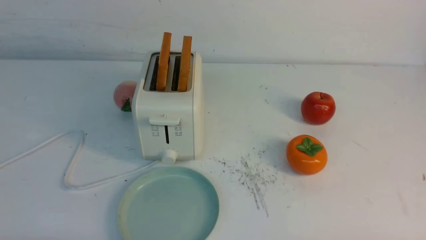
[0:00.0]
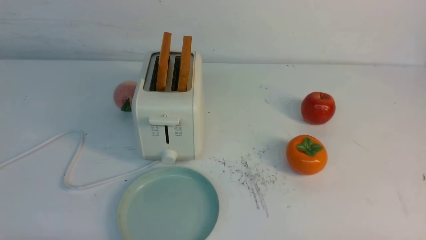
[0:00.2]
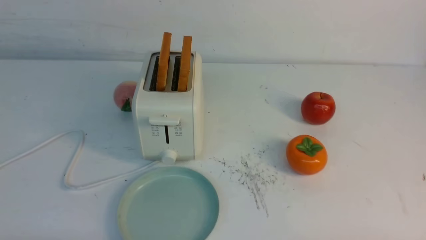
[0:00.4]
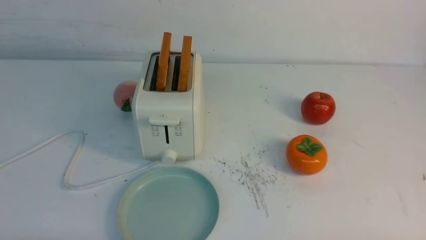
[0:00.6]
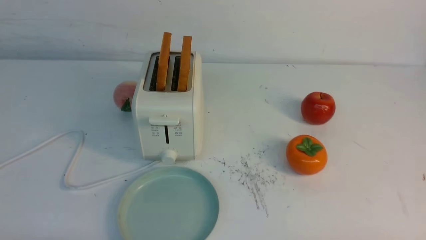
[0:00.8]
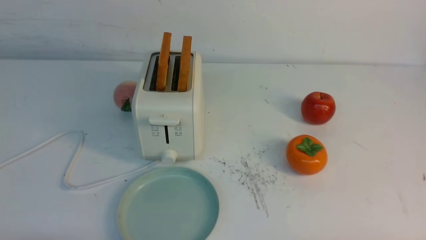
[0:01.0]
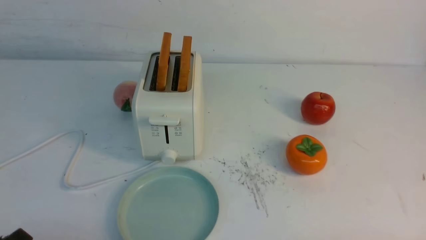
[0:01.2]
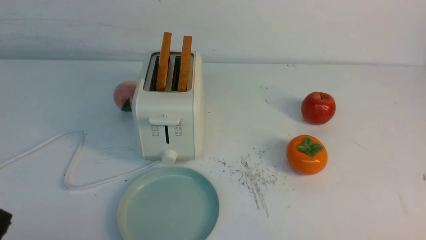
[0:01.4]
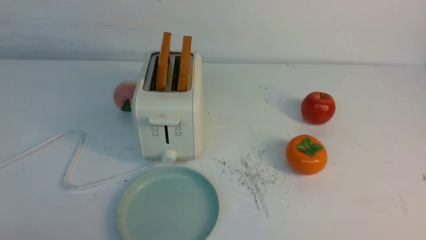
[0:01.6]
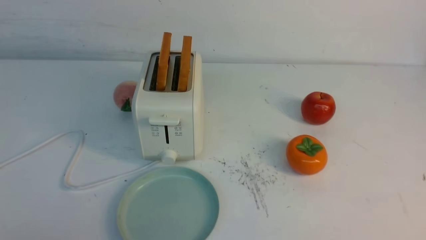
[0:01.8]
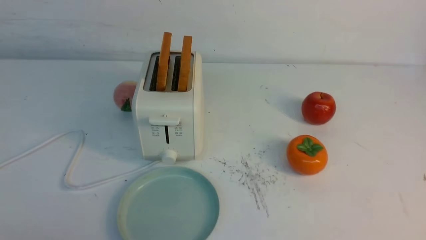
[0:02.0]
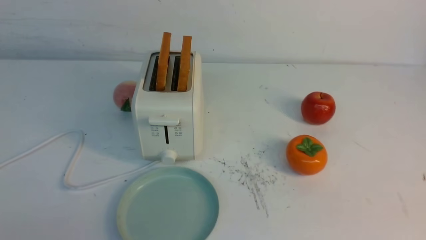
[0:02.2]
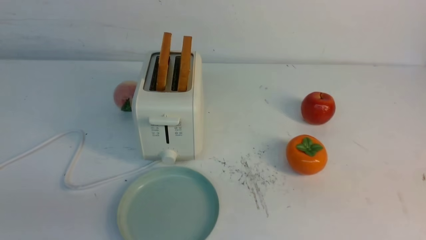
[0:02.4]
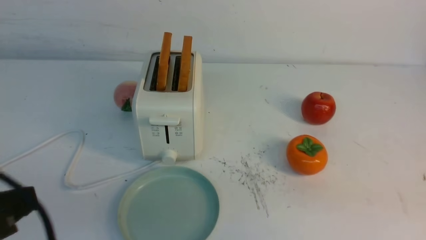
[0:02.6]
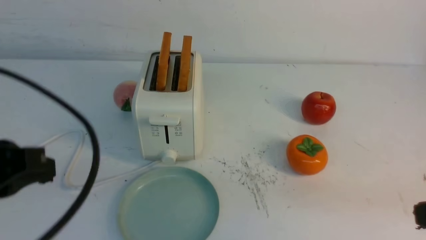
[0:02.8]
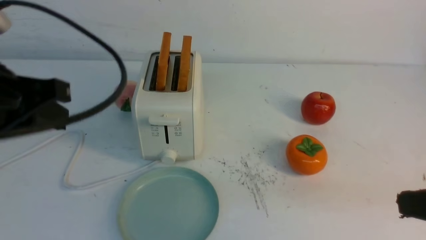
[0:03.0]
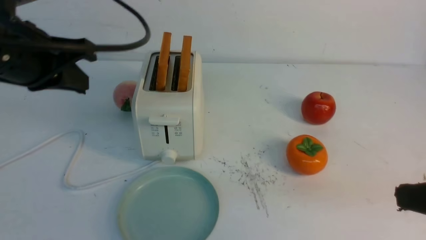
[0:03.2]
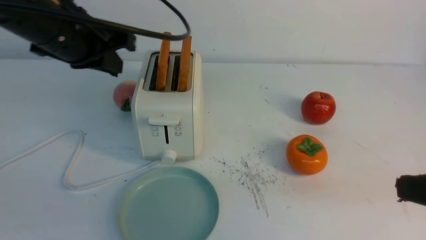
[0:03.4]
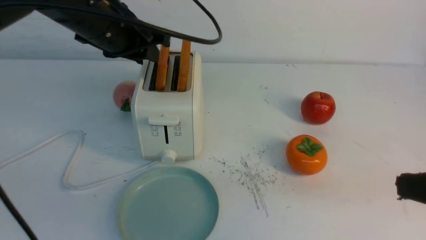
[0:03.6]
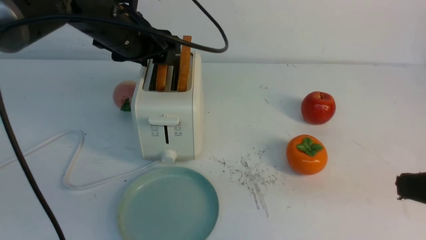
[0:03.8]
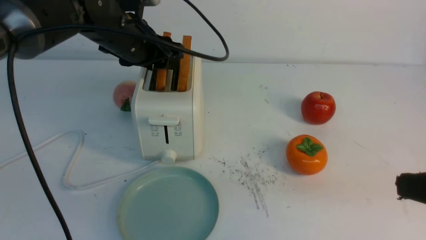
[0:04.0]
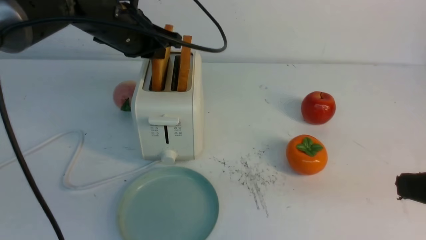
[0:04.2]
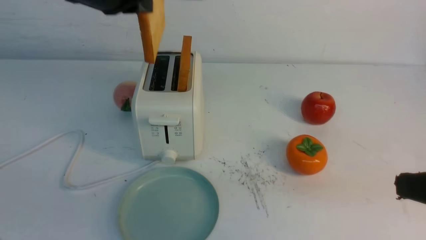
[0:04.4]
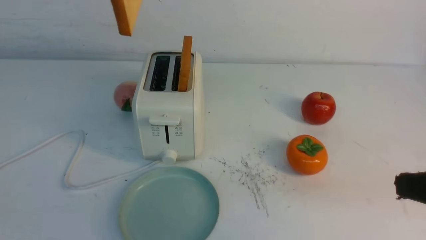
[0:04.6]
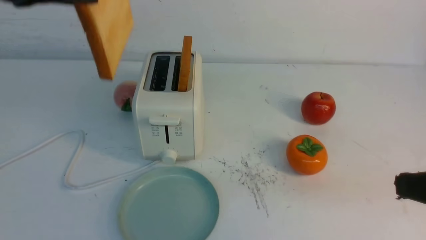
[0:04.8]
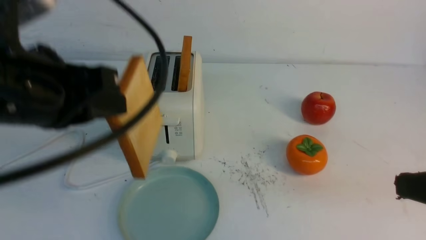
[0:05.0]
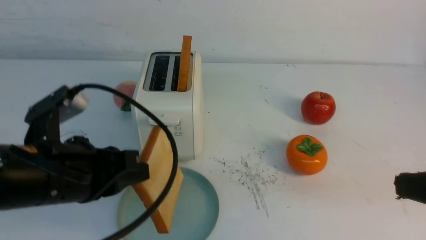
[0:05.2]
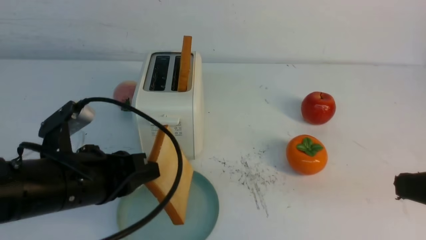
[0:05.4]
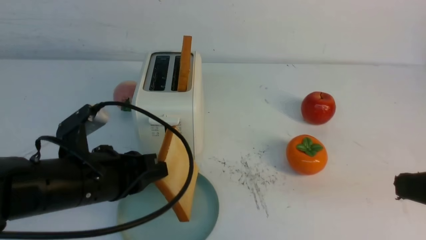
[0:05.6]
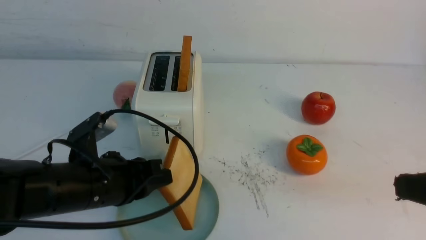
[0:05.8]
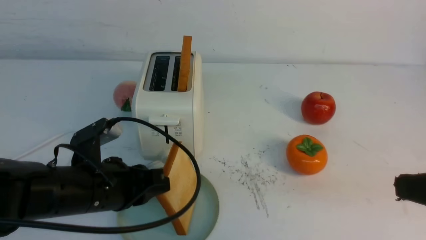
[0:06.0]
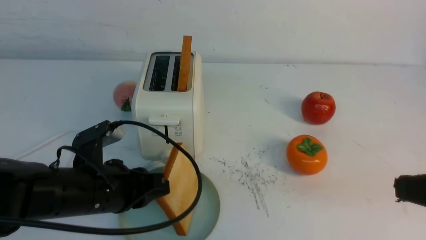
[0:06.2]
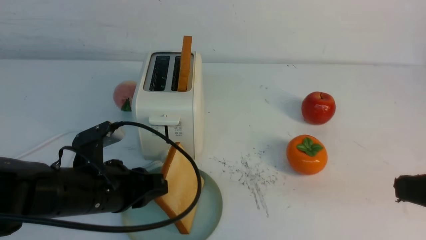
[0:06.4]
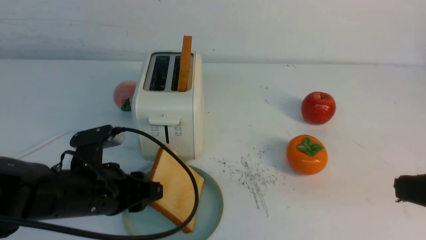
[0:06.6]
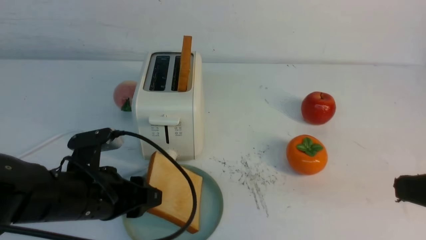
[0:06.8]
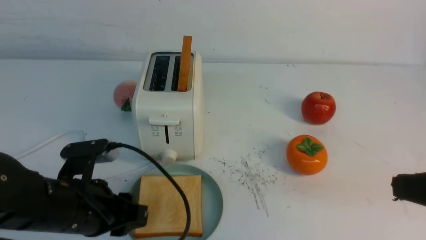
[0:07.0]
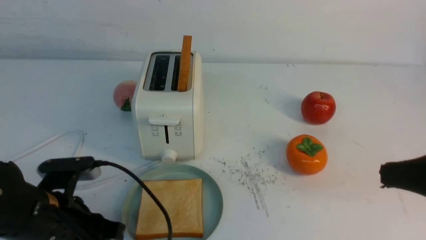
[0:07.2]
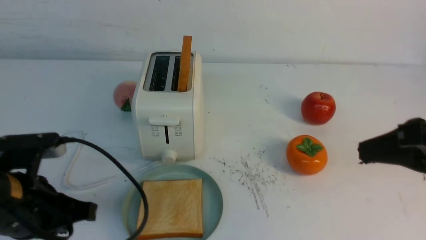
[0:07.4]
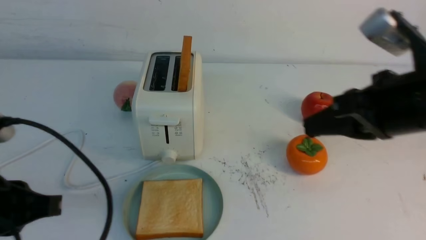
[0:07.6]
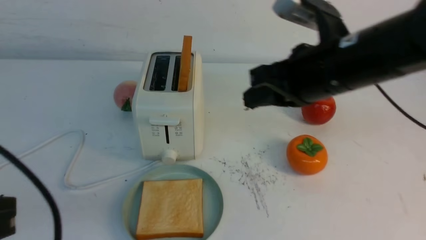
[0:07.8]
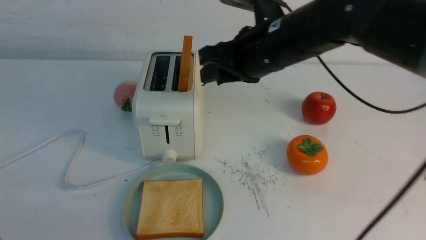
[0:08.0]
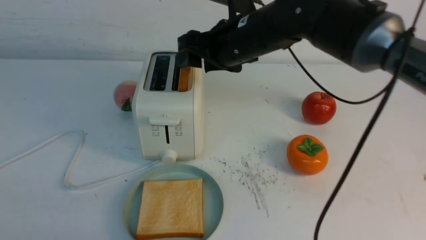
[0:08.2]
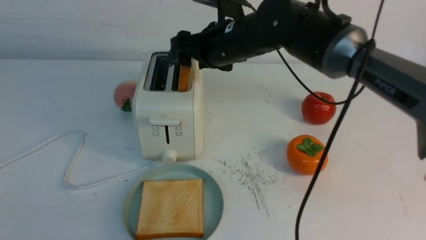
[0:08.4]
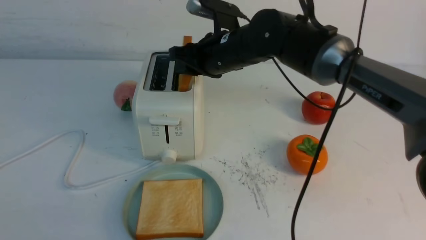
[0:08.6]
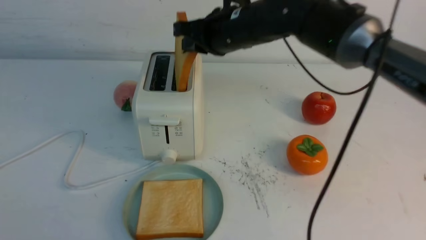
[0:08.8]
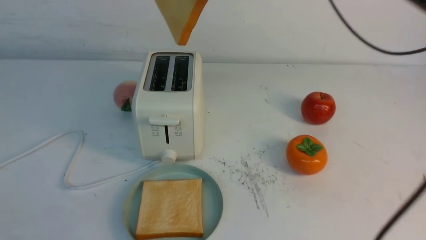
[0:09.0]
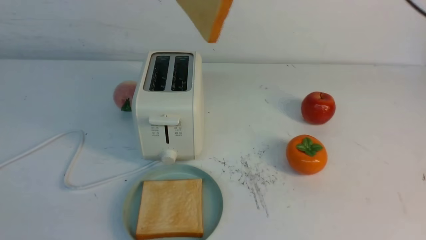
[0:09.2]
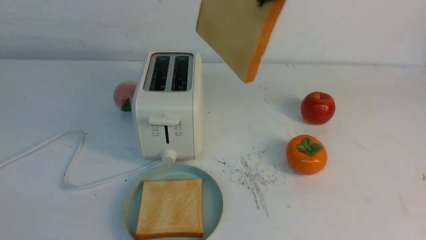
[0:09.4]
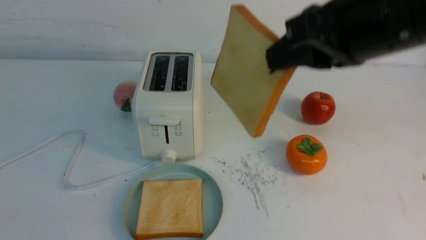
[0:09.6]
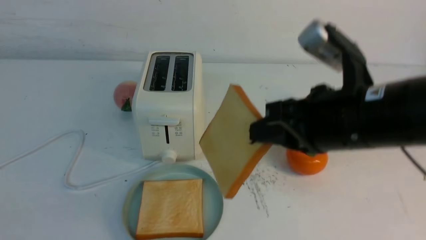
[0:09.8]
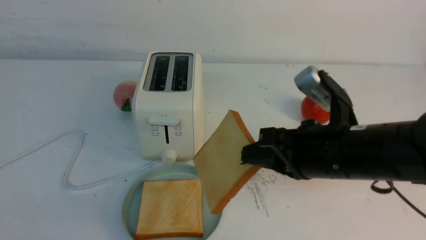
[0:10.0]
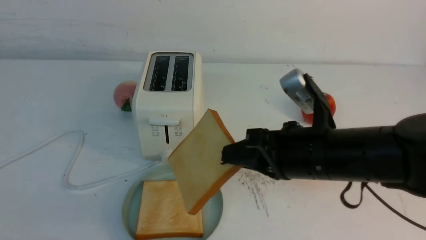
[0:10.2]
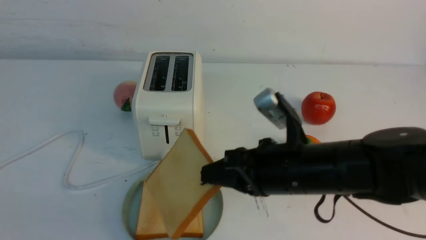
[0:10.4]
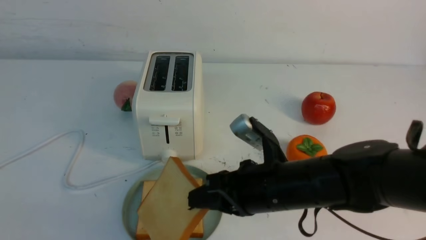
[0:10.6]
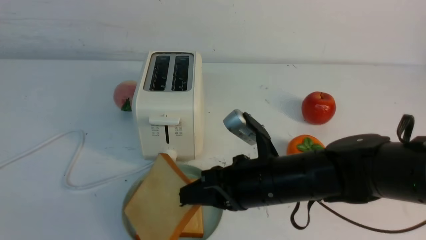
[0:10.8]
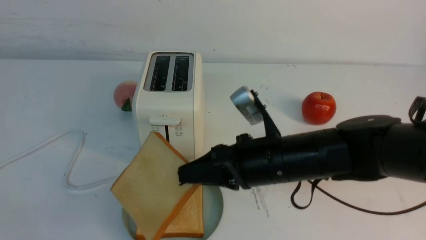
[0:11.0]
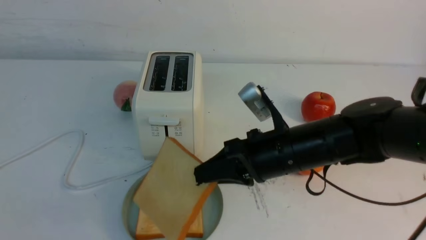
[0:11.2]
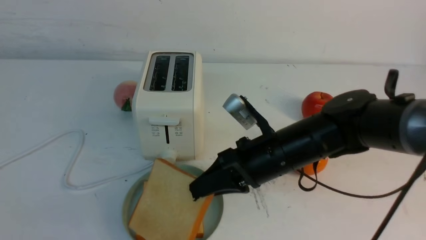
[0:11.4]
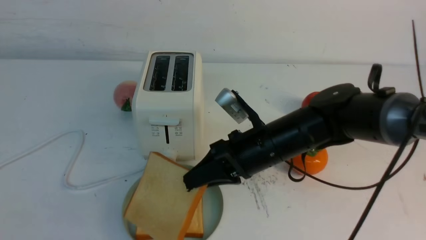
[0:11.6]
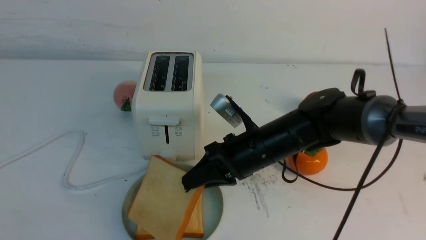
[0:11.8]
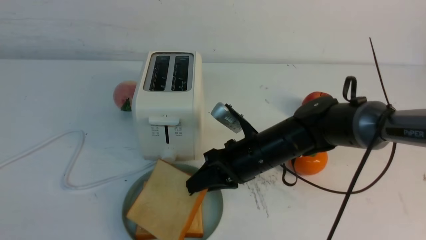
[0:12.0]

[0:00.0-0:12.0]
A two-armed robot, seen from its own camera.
Task of the whole recording: take toasted bread from bread machine on white table place on plate.
Step, 0:00.0 to 0:04.2: use the left arm to take out a slice of bread.
Step, 0:04.4 to 0:07.2: use the left arm to put a slice of bread into the empty plate.
Step, 0:07.4 to 0:08.8: use the right arm to take out a slice of bread.
0:01.6 to 0:03.0: The right gripper shifts about 15 cm upward and forward, and closes, while the left gripper is displaced upward and forward by roughly 25 cm, and closes up.
0:03.0 to 0:04.4: The left gripper is displaced forward, to the right and upward by approximately 15 cm, and opens, then closes once more.
0:04.4 to 0:06.0: The left gripper moves downward and backward, about 25 cm.
0:06.0 to 0:07.6: The right gripper goes about 15 cm forward and to the left; the left gripper shifts some 15 cm backward, upward and to the left, and opens and closes again.
0:07.6 to 0:09.0: The left gripper moves backward, approximately 15 cm. The right gripper heads to the left, forward and upward, covering some 15 cm, and opens and closes again.
0:09.0 to 0:10.4: The right gripper goes roughly 25 cm downward and backward.
0:10.4 to 0:12.0: The right gripper travels forward and downward by approximately 10 cm.

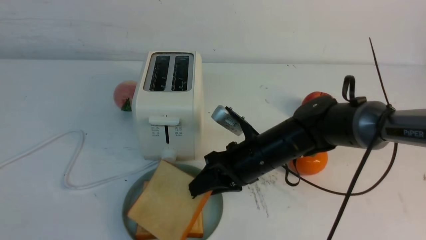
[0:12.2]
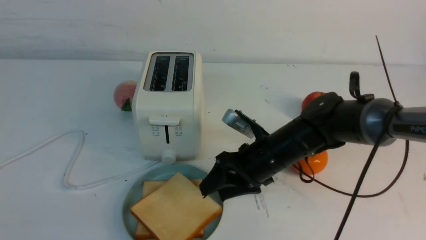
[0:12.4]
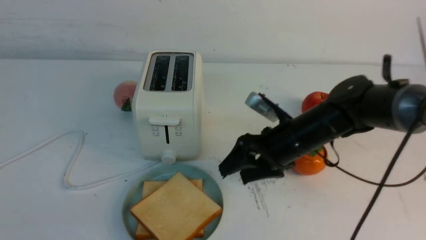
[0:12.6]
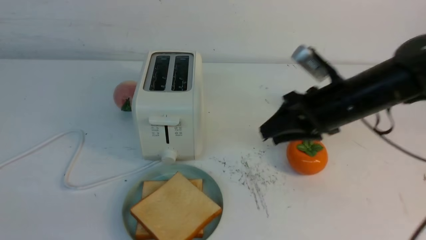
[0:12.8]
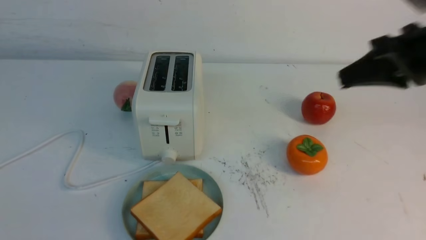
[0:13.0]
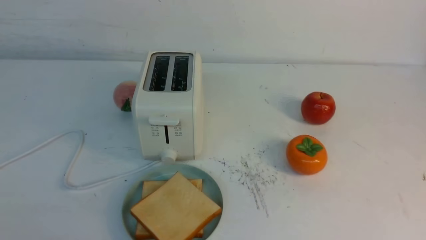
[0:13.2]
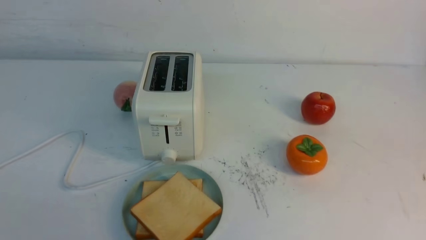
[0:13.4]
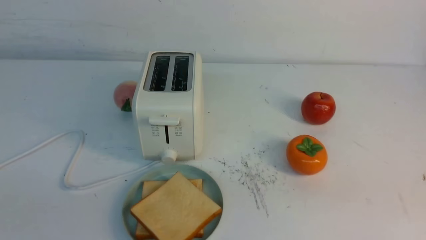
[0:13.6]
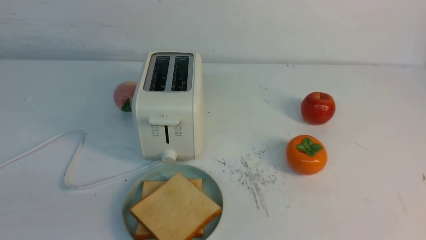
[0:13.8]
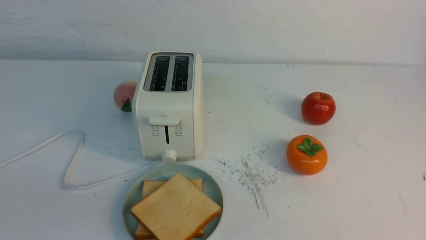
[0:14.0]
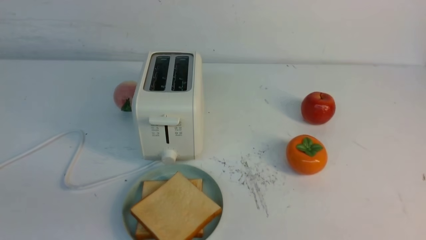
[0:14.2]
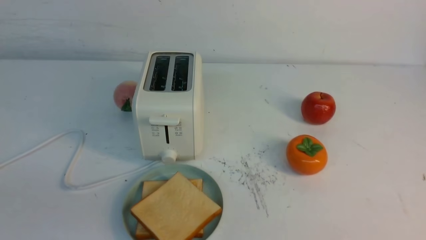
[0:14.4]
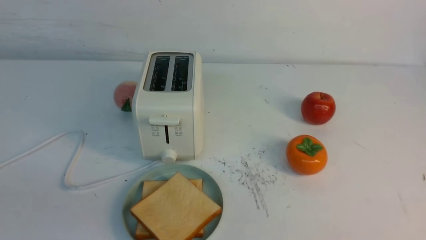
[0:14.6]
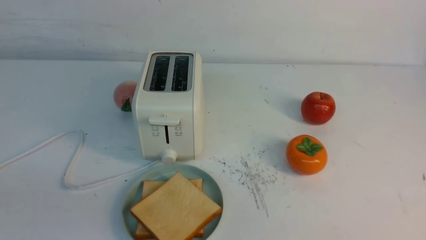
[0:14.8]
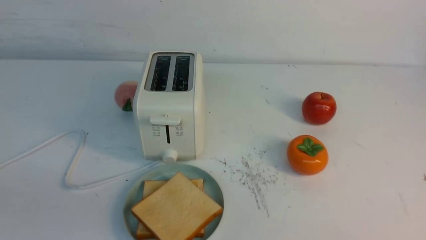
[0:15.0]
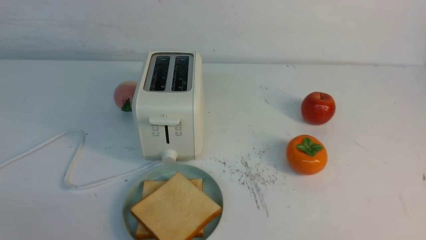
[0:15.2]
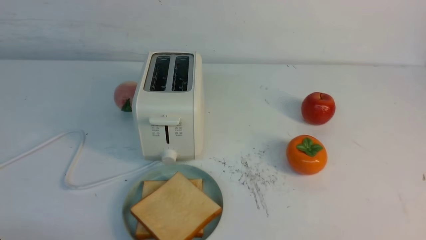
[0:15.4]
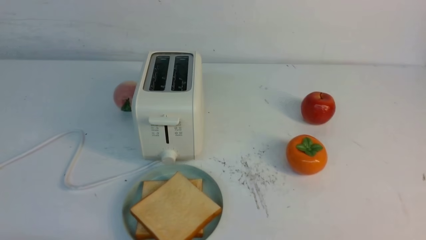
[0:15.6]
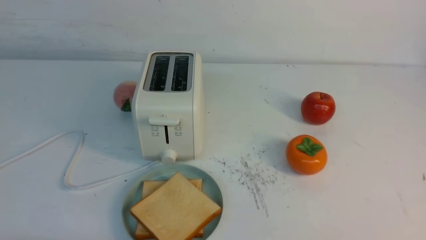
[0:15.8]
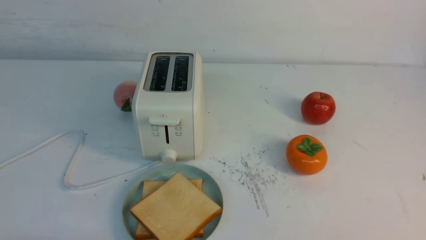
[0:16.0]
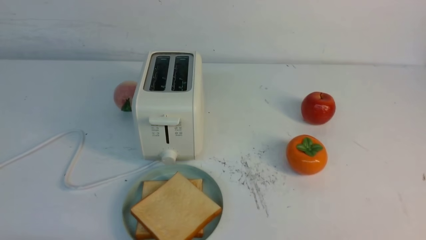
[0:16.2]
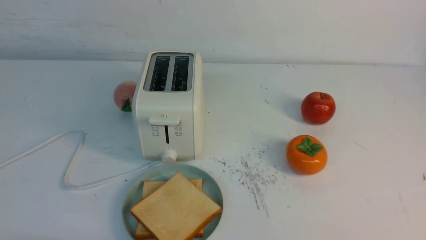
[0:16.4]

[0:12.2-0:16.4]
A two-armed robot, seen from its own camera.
Task of the whole recording: take toasted bread from bread machine on white table place on plate.
0:12.2 to 0:13.6: The right gripper heads backward, to the right and upward, covering roughly 40 cm, and closes.
